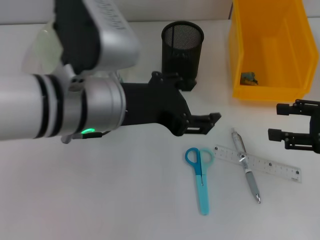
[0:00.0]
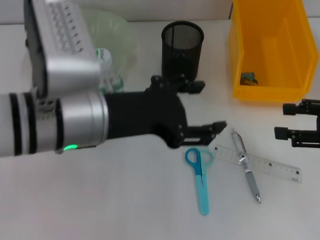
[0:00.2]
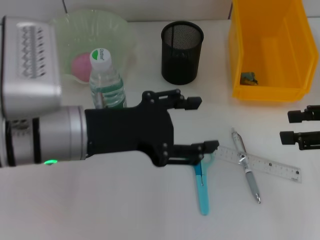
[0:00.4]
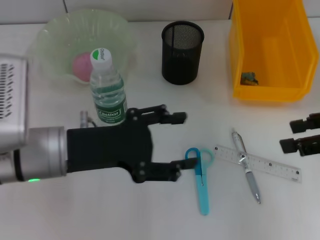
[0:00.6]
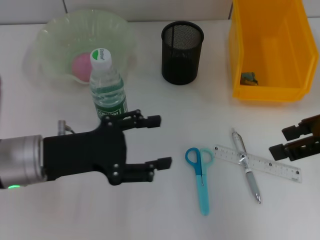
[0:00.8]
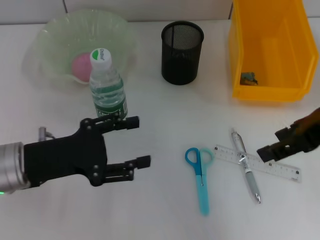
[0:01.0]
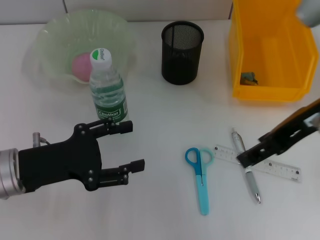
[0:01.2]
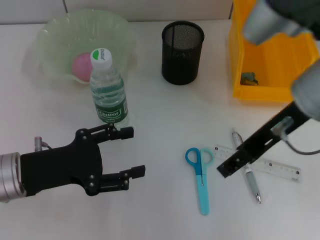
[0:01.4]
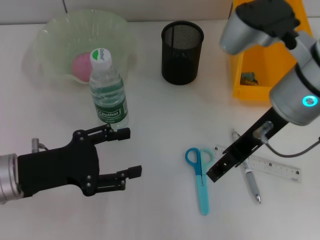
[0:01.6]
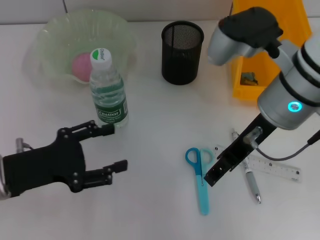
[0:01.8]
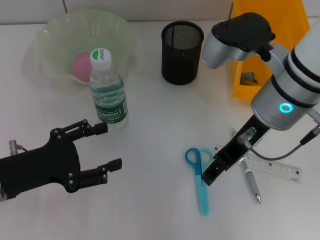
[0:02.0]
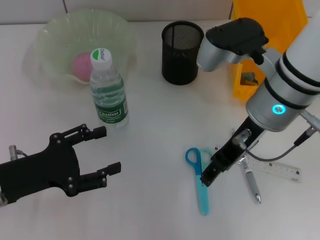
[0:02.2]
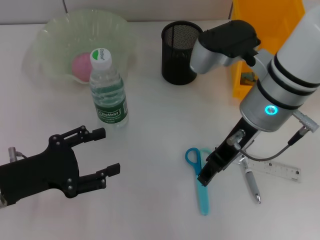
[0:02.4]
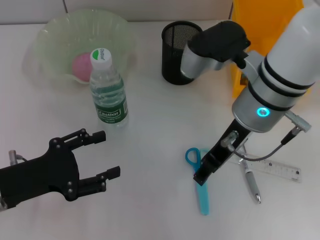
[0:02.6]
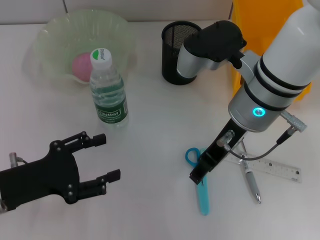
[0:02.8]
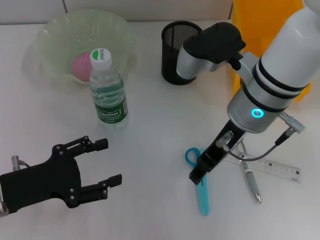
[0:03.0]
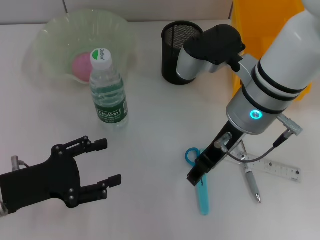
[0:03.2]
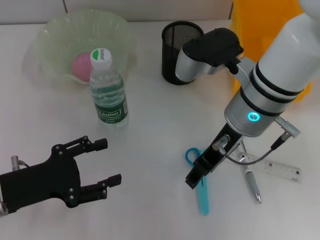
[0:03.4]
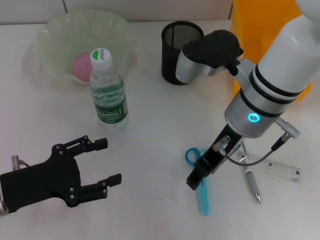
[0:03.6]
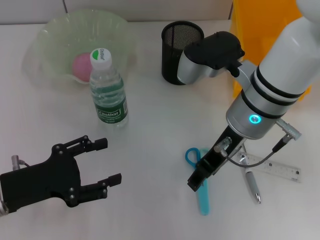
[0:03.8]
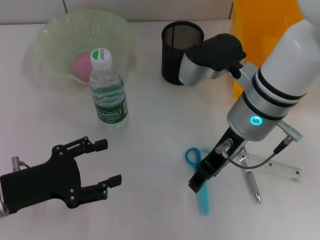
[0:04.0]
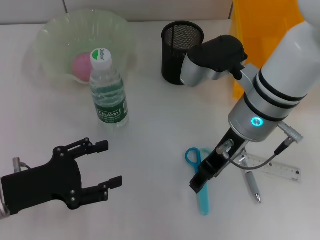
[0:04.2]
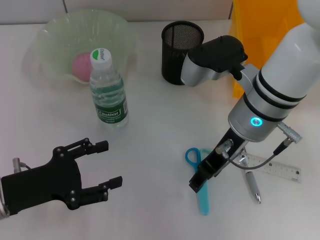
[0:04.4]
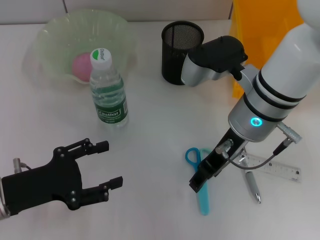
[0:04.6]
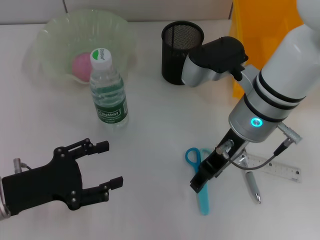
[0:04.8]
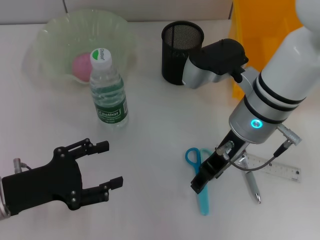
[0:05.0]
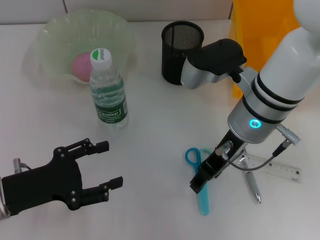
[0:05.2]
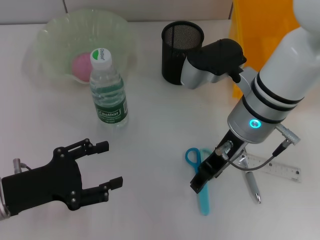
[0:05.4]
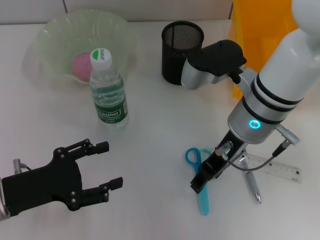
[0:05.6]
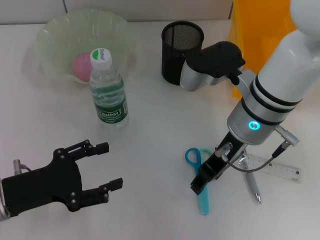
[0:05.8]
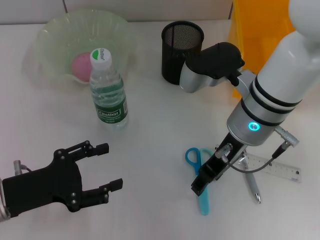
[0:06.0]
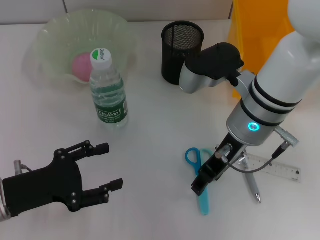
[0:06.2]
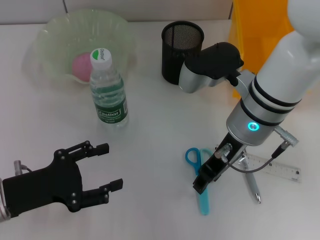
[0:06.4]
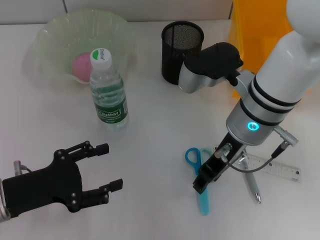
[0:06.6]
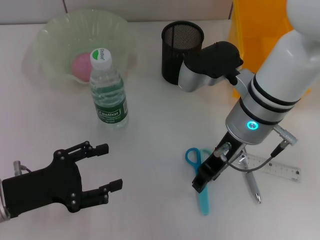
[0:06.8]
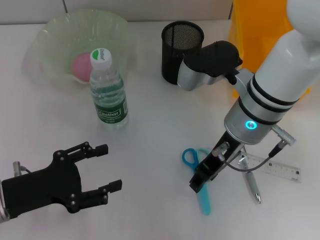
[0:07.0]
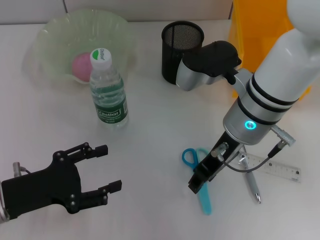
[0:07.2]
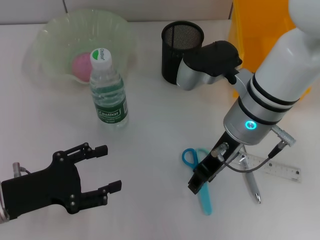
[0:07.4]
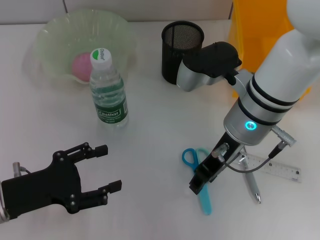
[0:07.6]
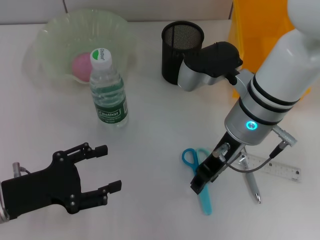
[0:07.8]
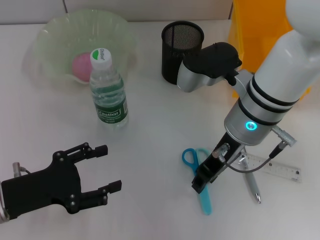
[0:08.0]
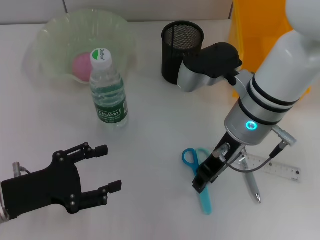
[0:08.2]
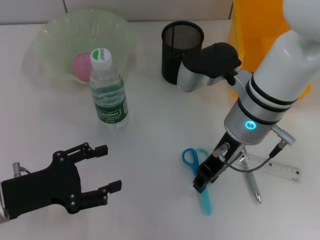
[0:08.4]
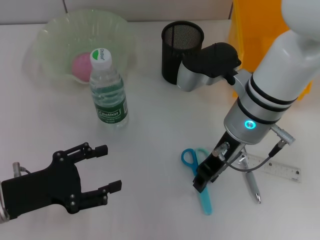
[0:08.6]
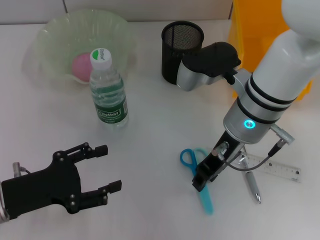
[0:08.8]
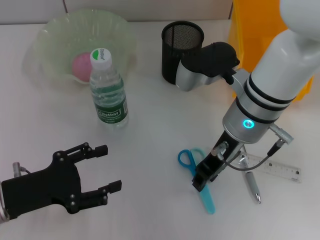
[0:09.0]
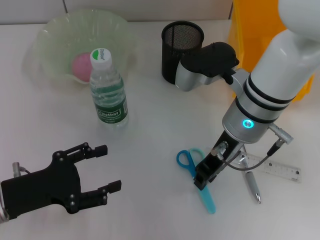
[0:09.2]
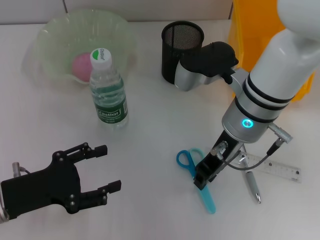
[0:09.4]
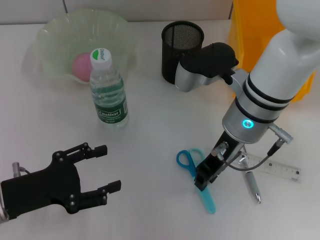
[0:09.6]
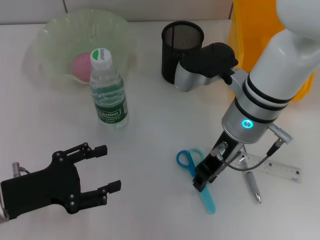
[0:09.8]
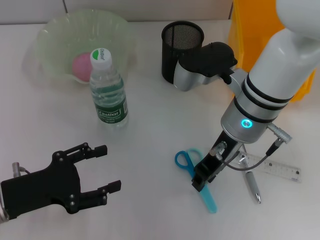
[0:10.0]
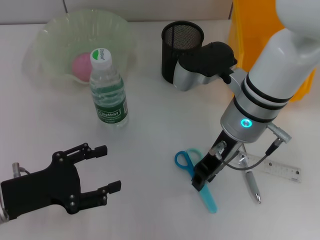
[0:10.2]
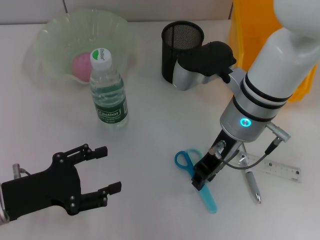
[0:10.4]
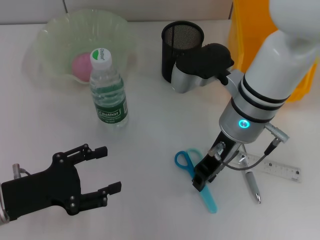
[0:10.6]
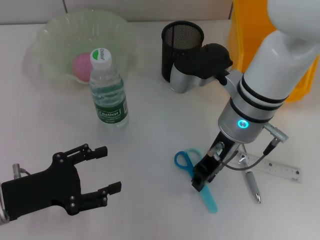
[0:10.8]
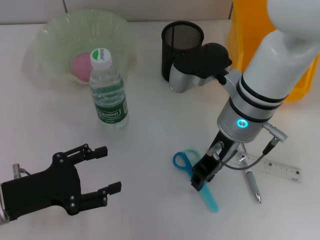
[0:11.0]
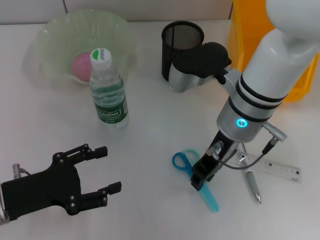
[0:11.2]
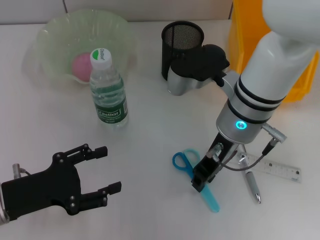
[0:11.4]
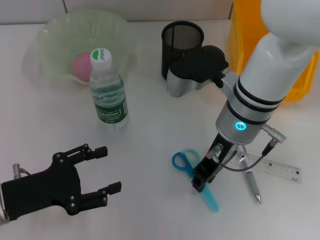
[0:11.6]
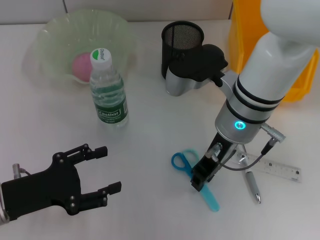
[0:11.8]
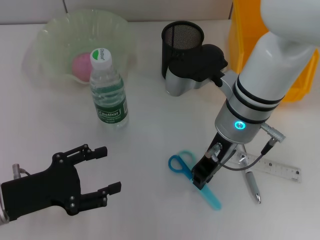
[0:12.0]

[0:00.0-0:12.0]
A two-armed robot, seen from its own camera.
0:00.0 to 0:01.6: The right gripper goes some 20 cm to the left and upward. The left gripper shifts approximately 20 cm to the left and downward.
0:01.6 to 0:03.0: The right gripper changes place by some 5 cm.
0:03.0 to 0:04.4: The grippers move only a little.
0:04.4 to 0:07.6: Neither gripper changes place.
0:07.6 to 0:10.4: Both grippers stay about where they are.
0:10.4 to 0:12.0: Both grippers stay about where they are.

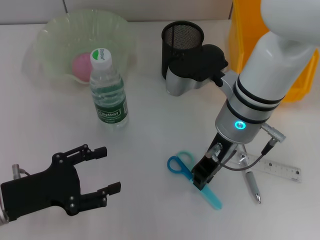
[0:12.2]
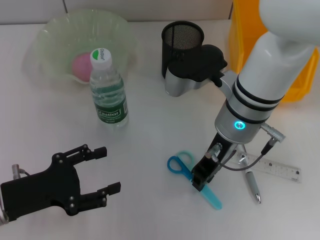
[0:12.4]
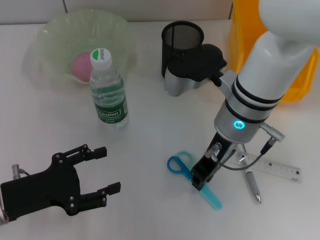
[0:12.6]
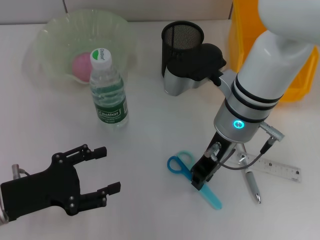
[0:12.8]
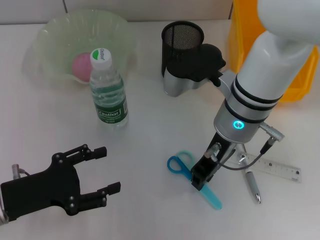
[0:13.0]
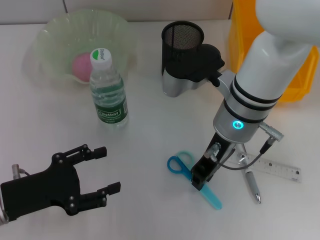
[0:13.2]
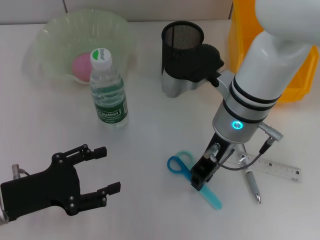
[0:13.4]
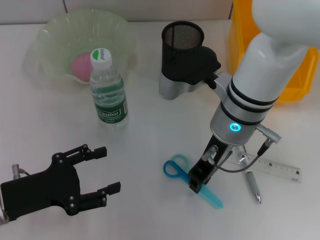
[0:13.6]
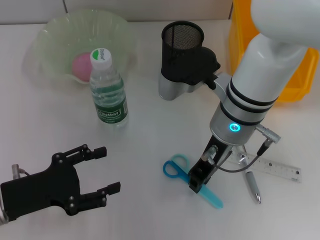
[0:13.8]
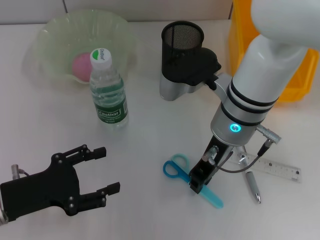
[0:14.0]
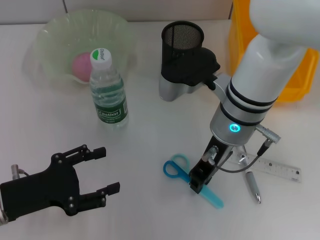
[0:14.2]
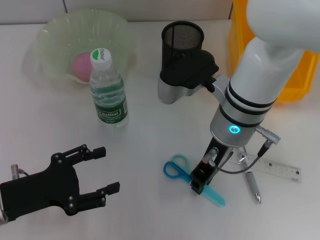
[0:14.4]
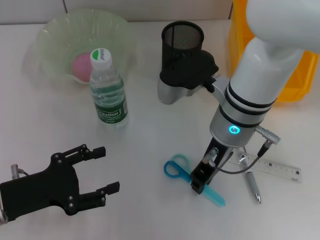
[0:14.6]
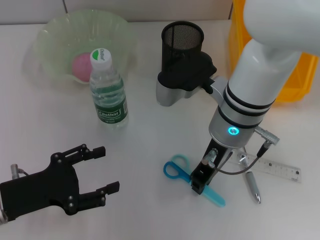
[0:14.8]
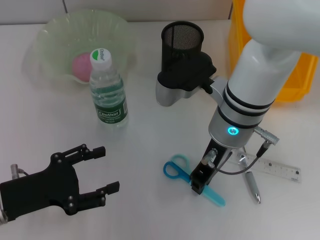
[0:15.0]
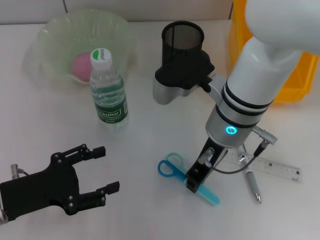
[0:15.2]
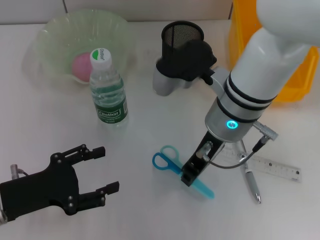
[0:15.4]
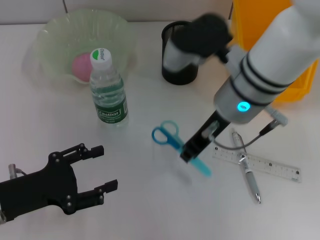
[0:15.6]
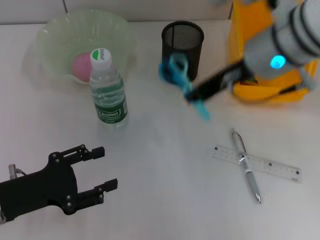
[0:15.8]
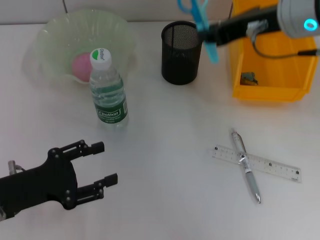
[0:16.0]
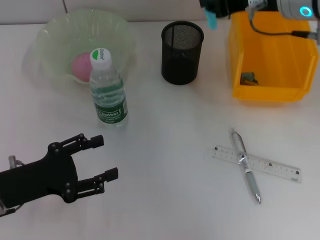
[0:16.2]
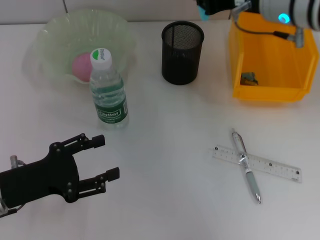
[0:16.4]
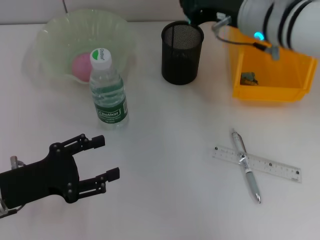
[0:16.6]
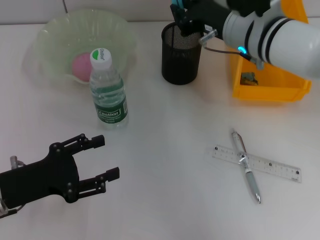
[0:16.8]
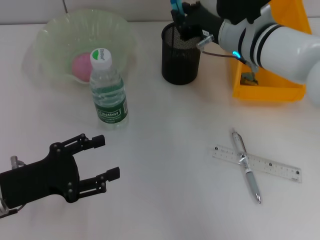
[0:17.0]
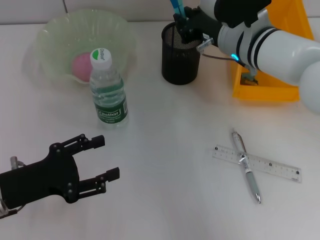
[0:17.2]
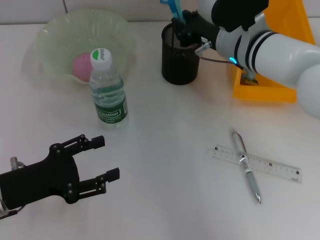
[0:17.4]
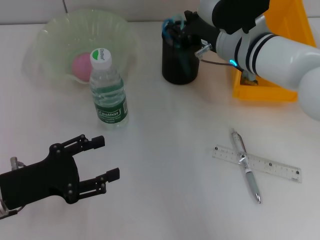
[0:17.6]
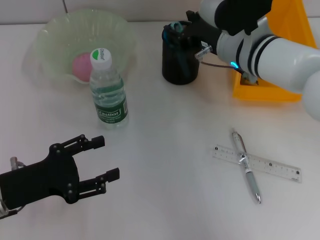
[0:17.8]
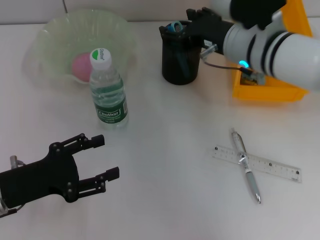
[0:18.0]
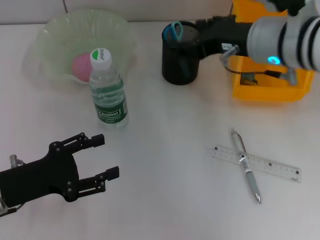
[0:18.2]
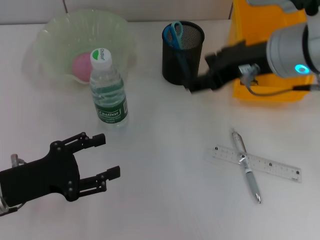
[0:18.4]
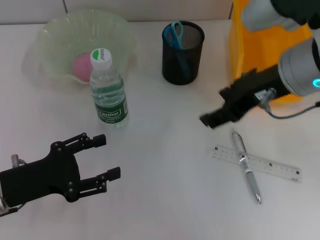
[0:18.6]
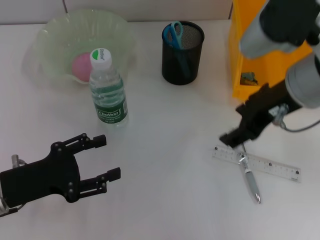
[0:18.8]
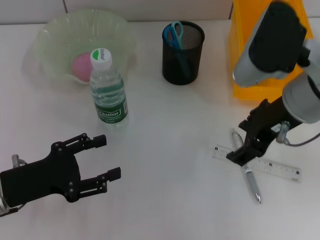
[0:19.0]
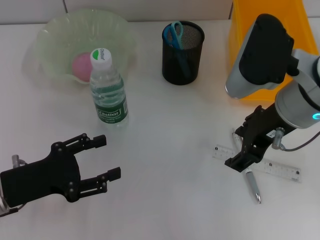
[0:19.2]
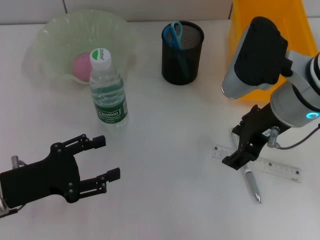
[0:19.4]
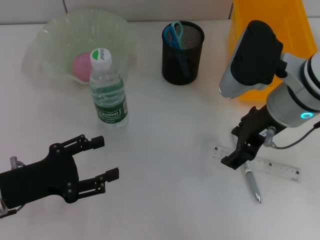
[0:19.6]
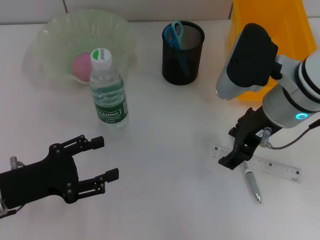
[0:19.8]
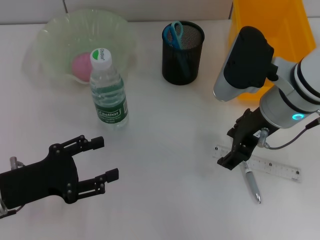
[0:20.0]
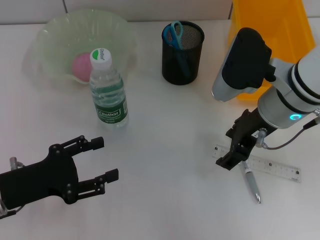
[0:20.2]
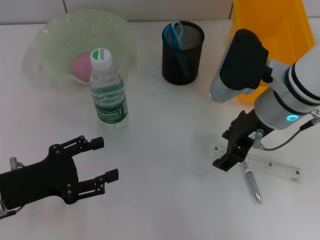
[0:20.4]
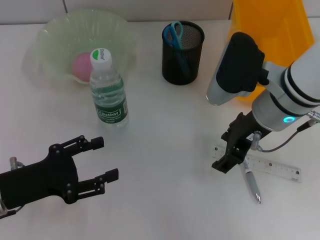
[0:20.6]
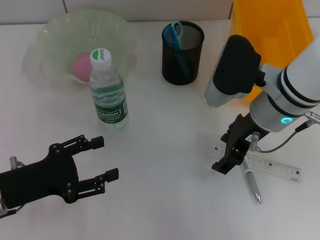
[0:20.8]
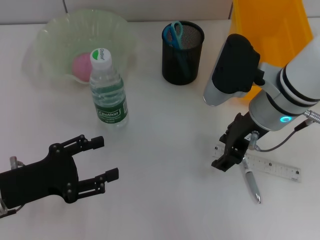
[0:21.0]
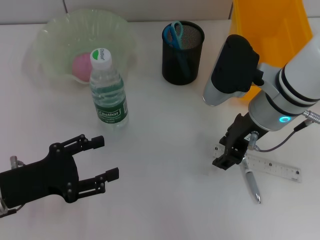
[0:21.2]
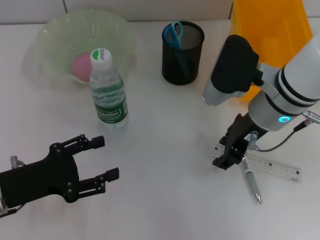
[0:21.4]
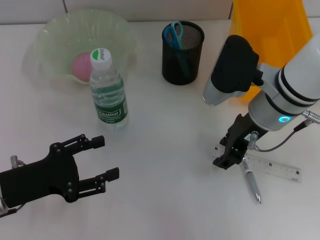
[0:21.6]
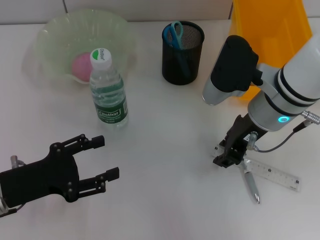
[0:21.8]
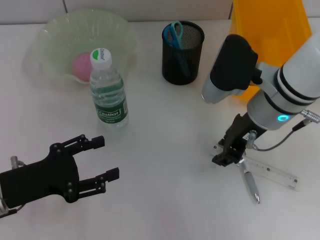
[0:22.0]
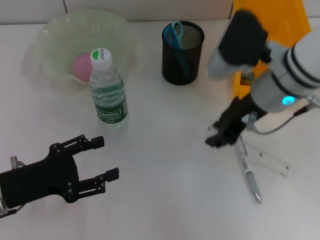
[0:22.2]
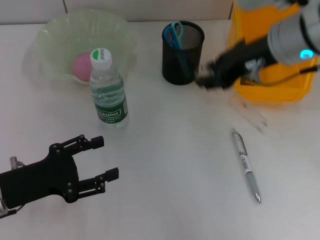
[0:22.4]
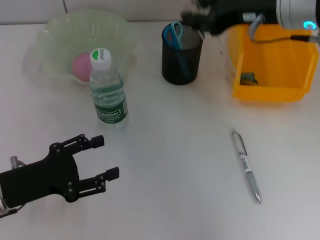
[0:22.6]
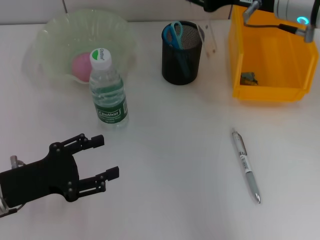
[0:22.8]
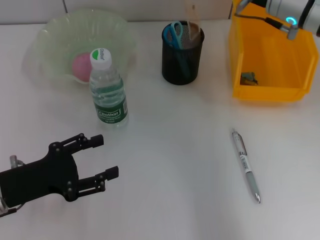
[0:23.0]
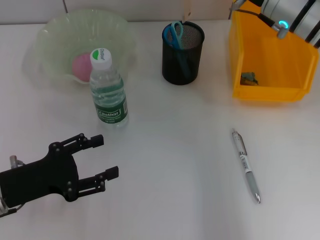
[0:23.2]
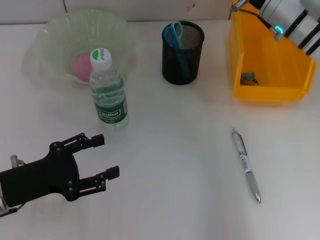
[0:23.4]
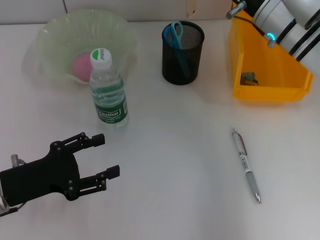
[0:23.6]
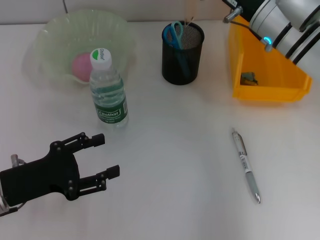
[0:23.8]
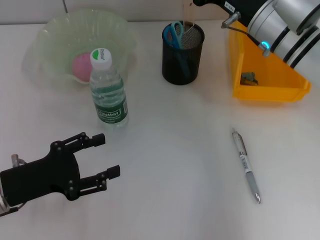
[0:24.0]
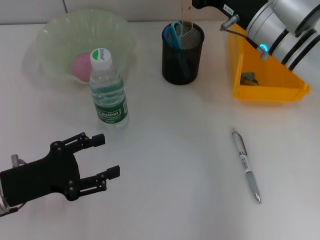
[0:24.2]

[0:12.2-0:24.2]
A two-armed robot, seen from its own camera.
Step, 0:12.2 to 0:14.8: Grab the blue scissors with the right hand.
Step, 0:15.2 to 0:17.6: Place the blue scissors into the pen holder with the right hand.
Step, 0:18.0 to 0:21.8: Grab the ruler with the right hand.
0:12.2 to 0:13.8: Both grippers stay put.
0:13.8 to 0:15.2: Both grippers stay put.
0:15.2 to 0:16.6: The right gripper is displaced to the right, forward and upward by about 10 cm.
0:16.6 to 0:18.2: The right gripper opens its fingers.
0:19.8 to 0:21.2: The grippers make only small movements.
0:21.2 to 0:22.6: The right gripper moves upward, roughly 10 cm, and closes its fingers.
0:22.6 to 0:24.2: The right gripper shifts about 10 cm downward.
